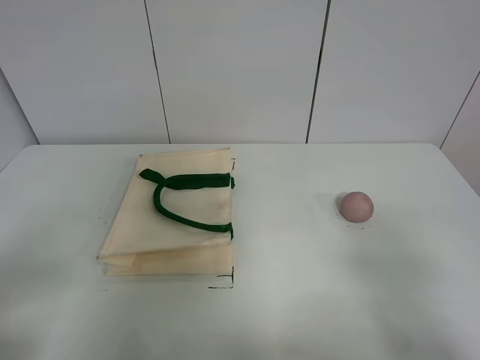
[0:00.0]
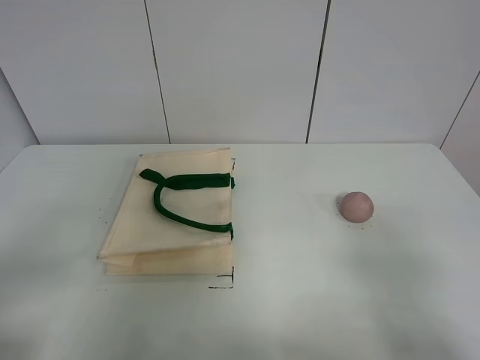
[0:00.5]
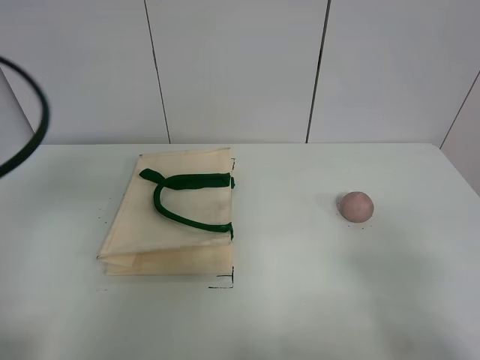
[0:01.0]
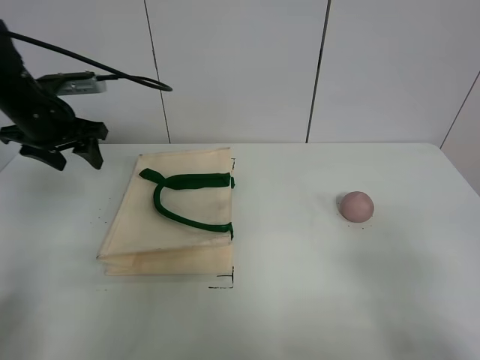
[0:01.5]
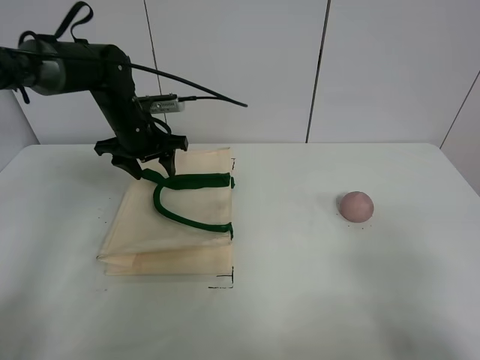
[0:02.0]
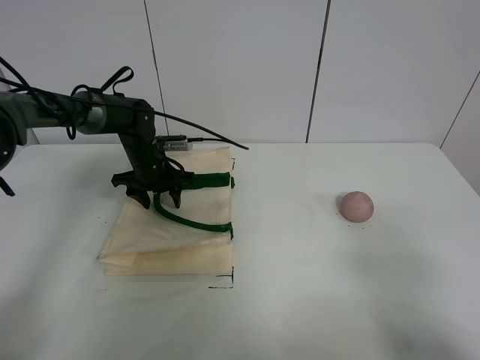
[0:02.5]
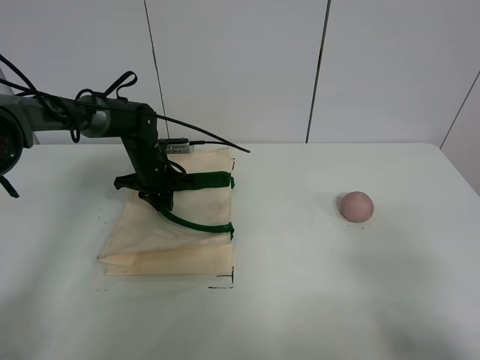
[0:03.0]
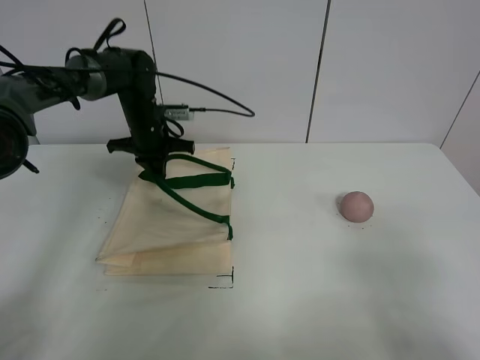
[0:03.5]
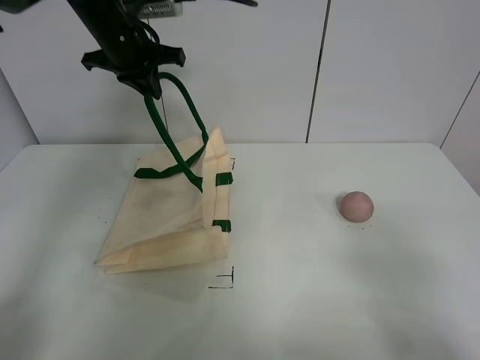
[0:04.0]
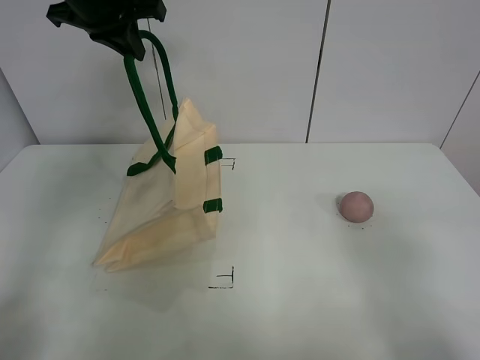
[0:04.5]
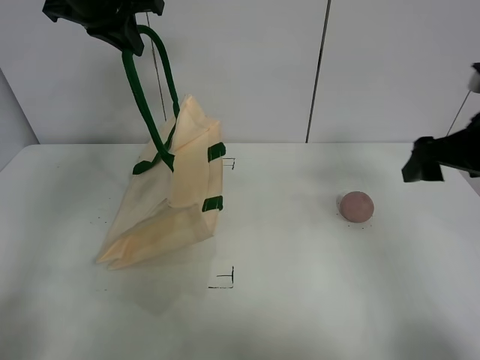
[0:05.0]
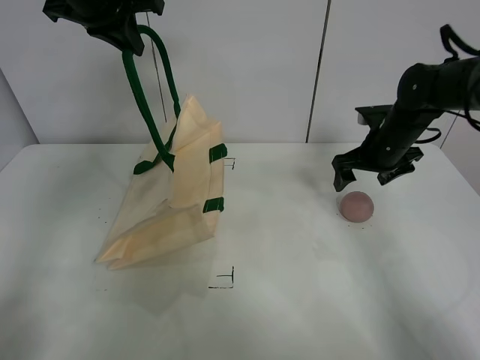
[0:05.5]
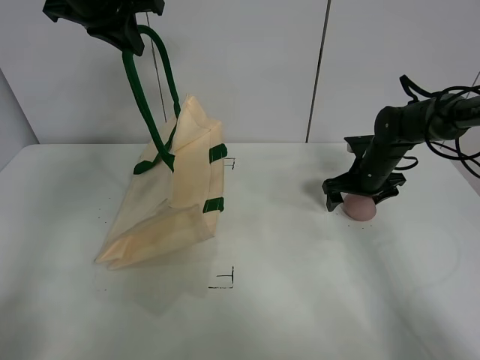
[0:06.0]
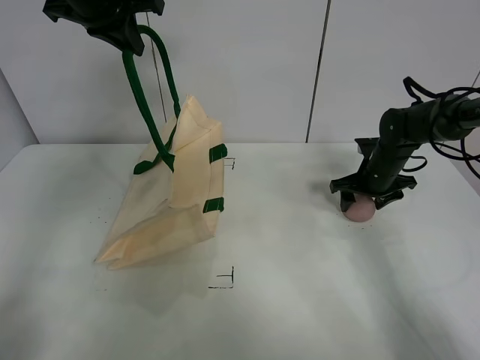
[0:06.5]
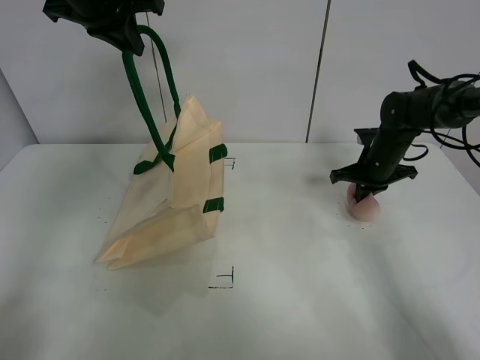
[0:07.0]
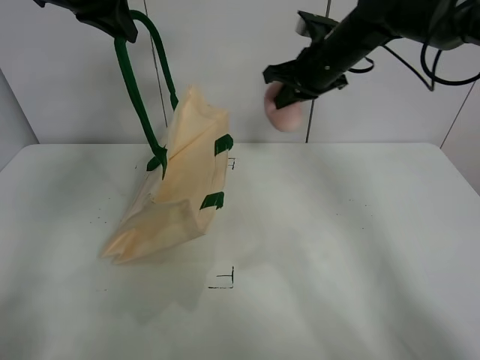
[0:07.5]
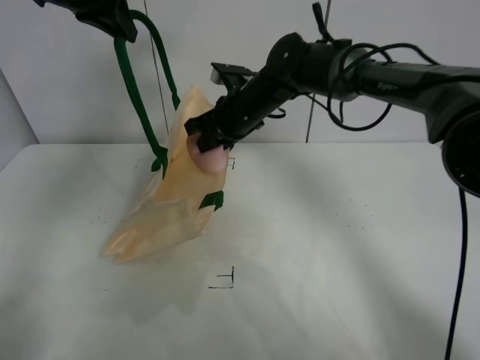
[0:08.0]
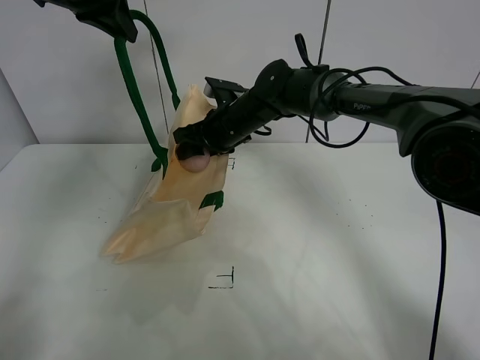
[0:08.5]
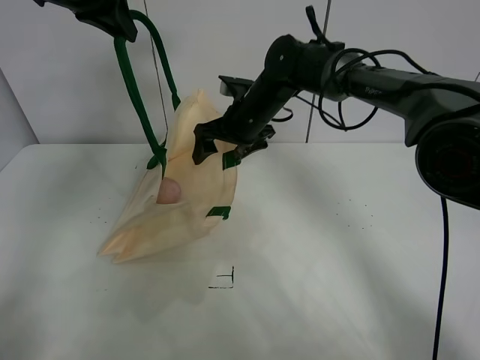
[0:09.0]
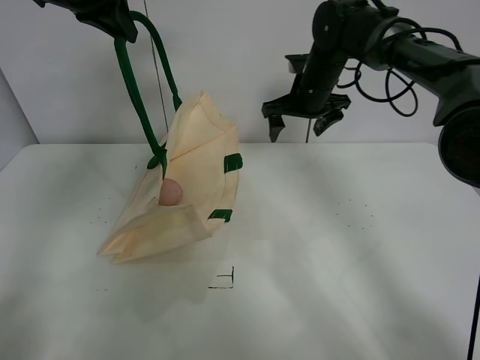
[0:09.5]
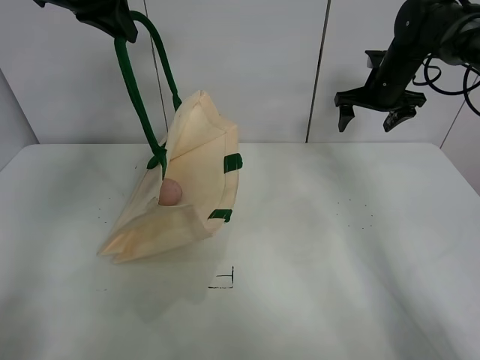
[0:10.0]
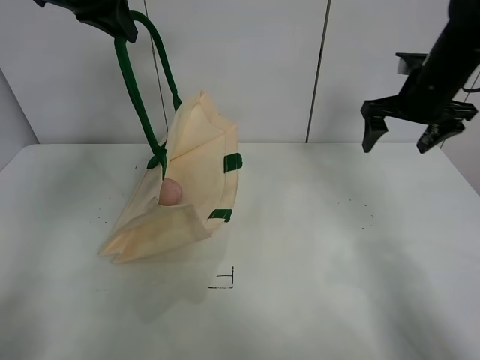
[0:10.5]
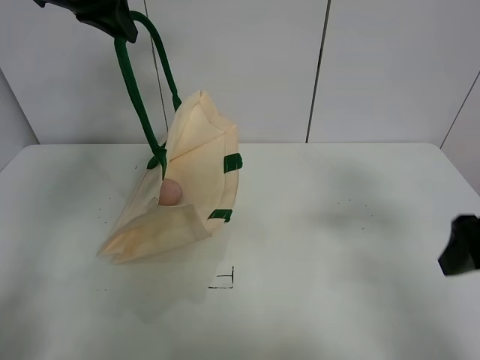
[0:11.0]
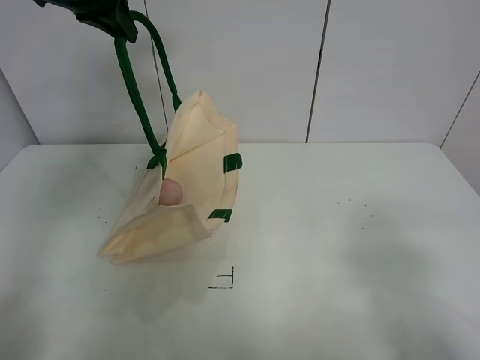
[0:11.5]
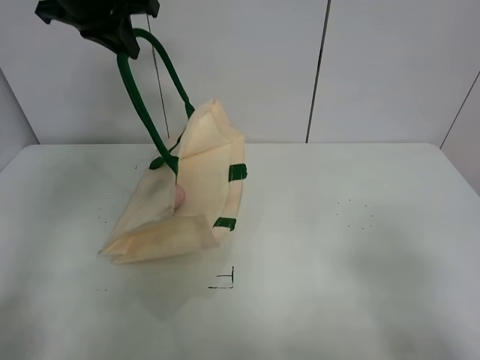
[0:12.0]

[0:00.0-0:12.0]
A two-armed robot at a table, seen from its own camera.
Task of the whole recording: open the white linen bag and put the peach in the bag.
Step, 0:00.0 to 0:04.0: Lift the handbag with left gripper.
Step, 0:04.5 to 0:06.5: Grasp the peach with right gripper.
Step, 0:07.0 to 0:08.5: Place the peach in the handbag with right gripper.
0:00.0 to 0:02.0: The left gripper heads forward, covering about 40 cm.
0:02.0 to 0:04.0: The left gripper heads upward, covering approximately 15 cm, and closes.
0:04.0 to 0:06.0: The left gripper travels upward by about 5 cm. The right gripper heads forward, covering roughly 40 cm.
0:06.0 to 0:08.0: The right gripper is displaced to the left and upward by roughly 25 cm, and closes up.
0:08.0 to 0:10.0: The right gripper heads to the right, covering roughly 25 cm, and opens its fingers.
0:10.0 to 0:12.0: The right gripper moves backward, roughly 50 cm.

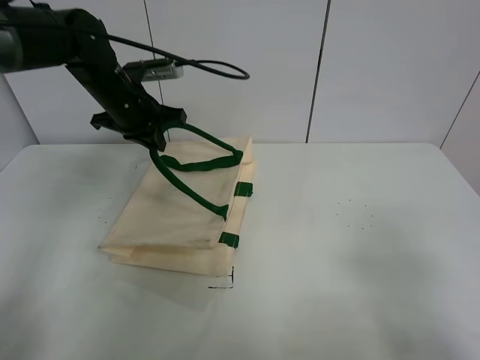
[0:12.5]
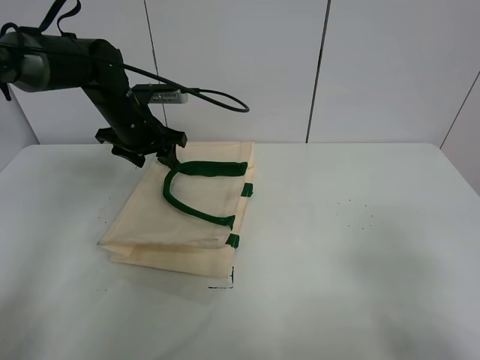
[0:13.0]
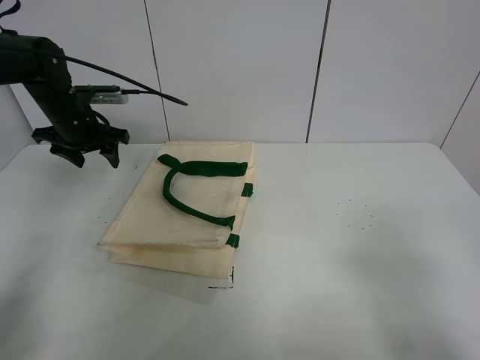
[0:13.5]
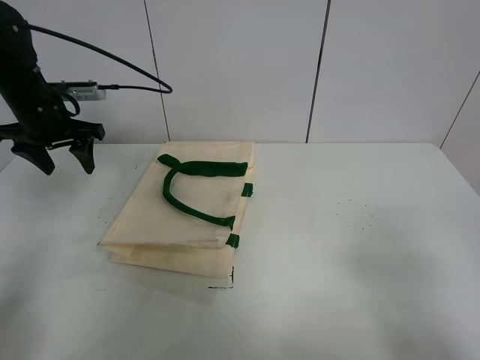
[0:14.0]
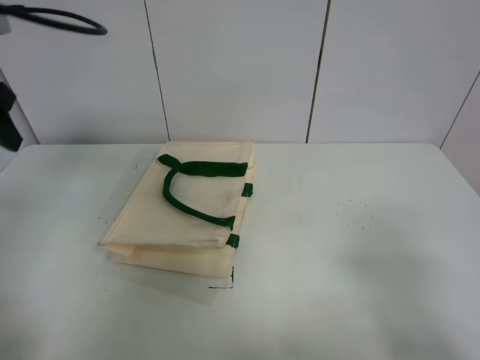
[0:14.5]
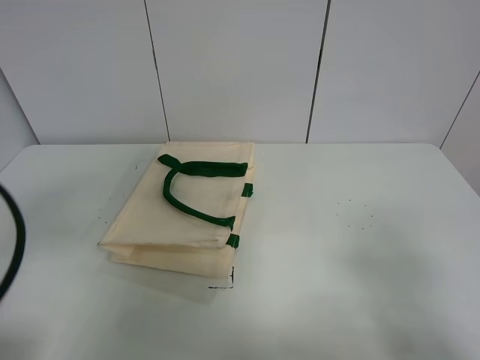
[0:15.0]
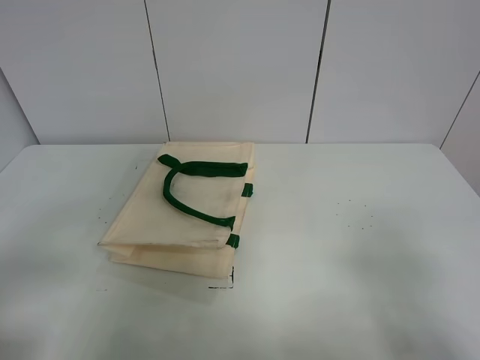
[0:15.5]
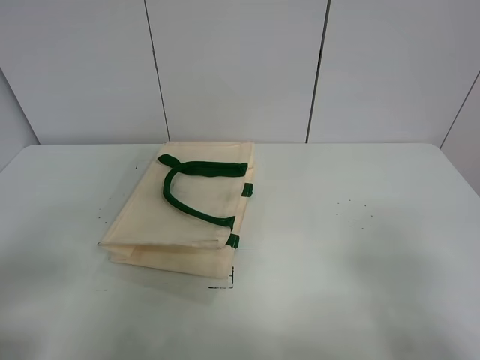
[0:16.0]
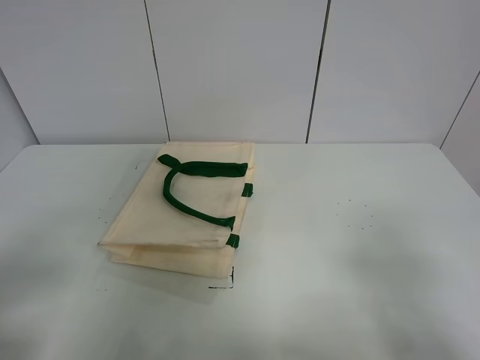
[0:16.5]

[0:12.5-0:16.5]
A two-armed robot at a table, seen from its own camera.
Task of the whole recording: open the white linen bag and put the peach in the bag.
0:12.5 to 0:14.5: The left gripper heads backward, to the left and upward, covering some 25 cm, and opens up.
0:14.5 to 0:16.5: The left gripper moves backward and downward, some 25 cm.
